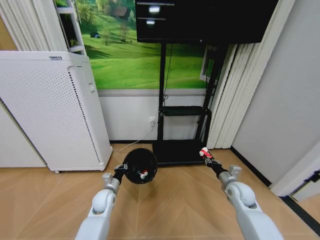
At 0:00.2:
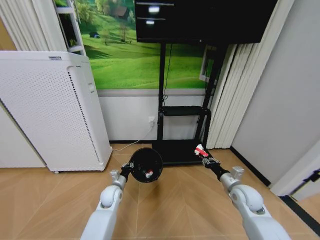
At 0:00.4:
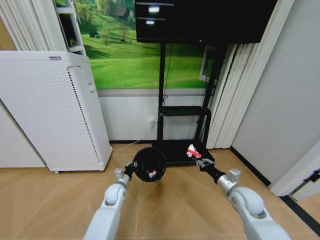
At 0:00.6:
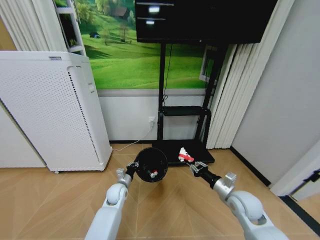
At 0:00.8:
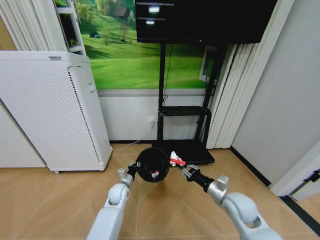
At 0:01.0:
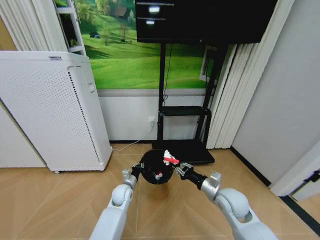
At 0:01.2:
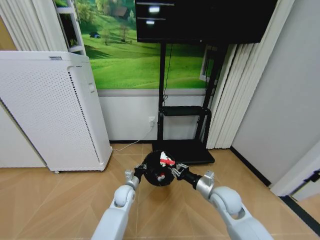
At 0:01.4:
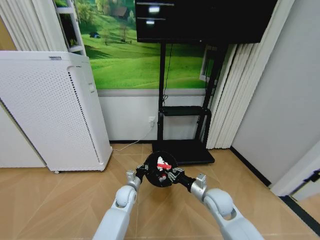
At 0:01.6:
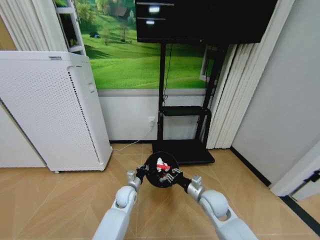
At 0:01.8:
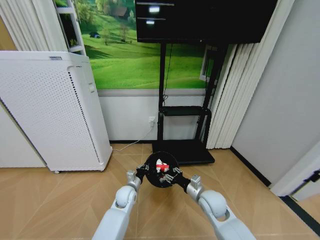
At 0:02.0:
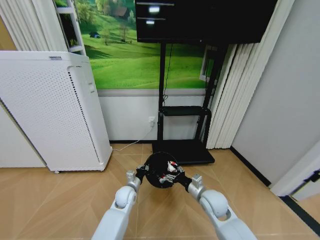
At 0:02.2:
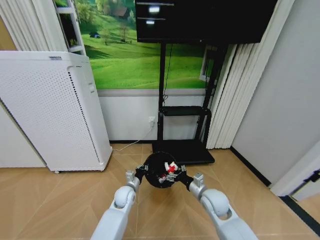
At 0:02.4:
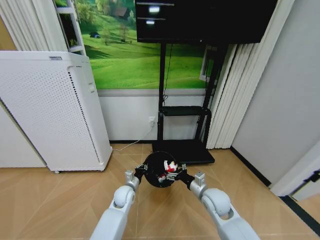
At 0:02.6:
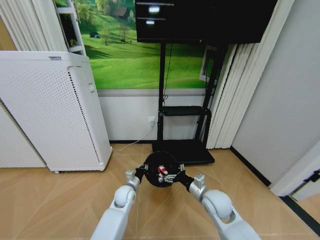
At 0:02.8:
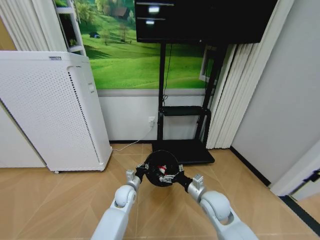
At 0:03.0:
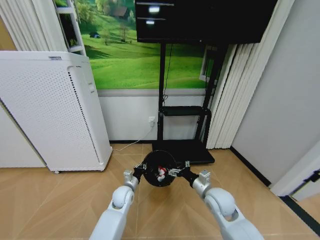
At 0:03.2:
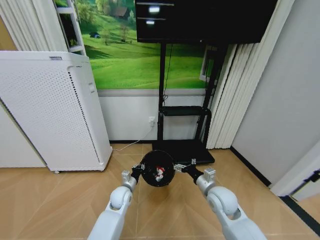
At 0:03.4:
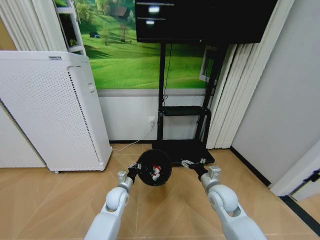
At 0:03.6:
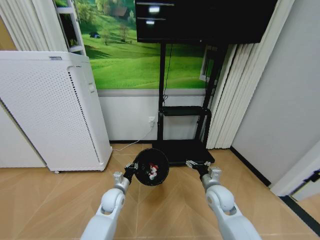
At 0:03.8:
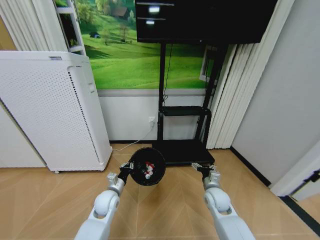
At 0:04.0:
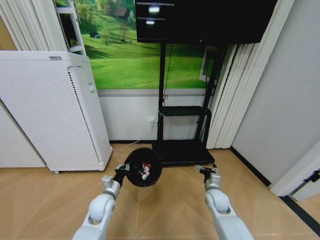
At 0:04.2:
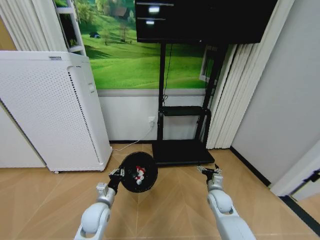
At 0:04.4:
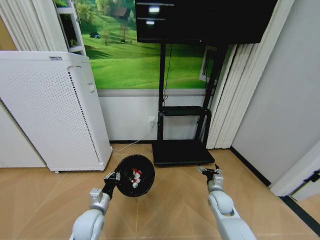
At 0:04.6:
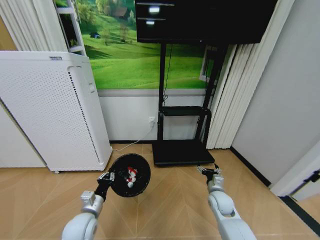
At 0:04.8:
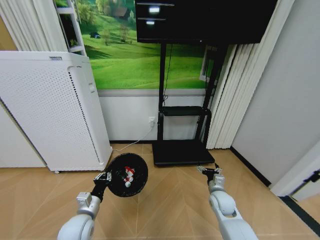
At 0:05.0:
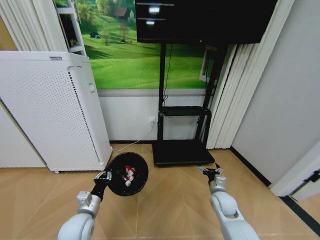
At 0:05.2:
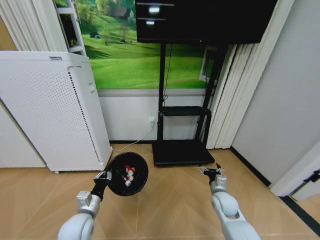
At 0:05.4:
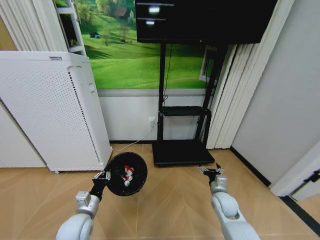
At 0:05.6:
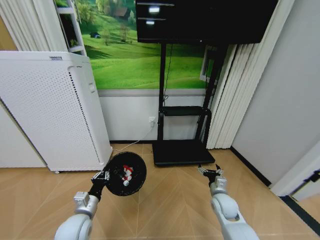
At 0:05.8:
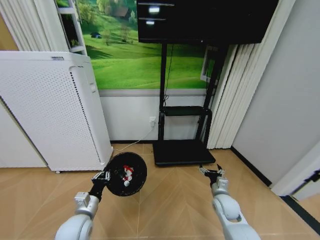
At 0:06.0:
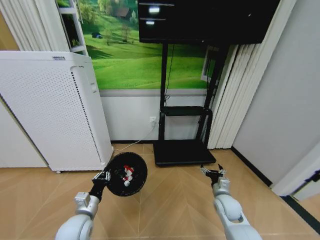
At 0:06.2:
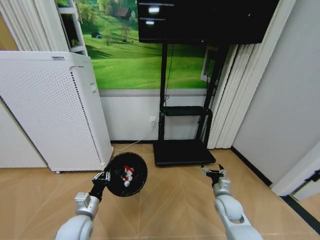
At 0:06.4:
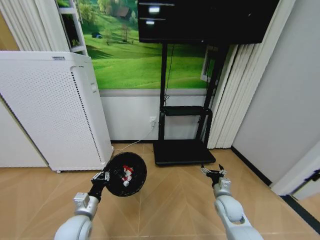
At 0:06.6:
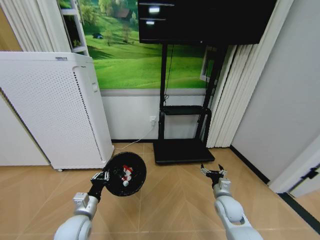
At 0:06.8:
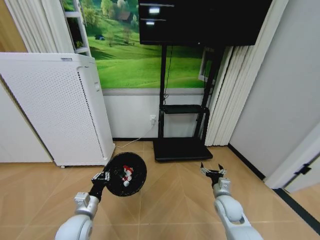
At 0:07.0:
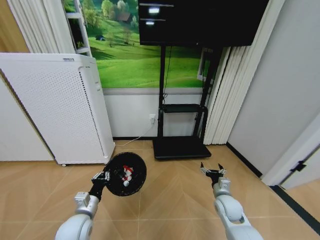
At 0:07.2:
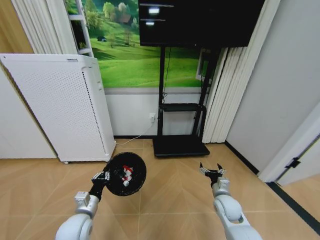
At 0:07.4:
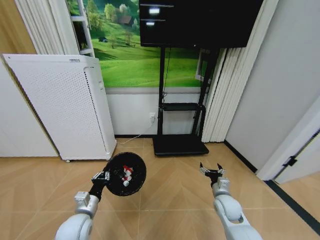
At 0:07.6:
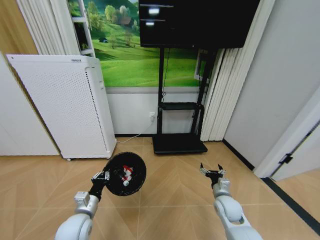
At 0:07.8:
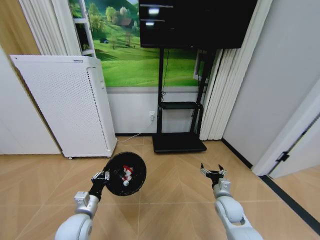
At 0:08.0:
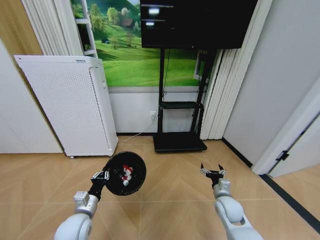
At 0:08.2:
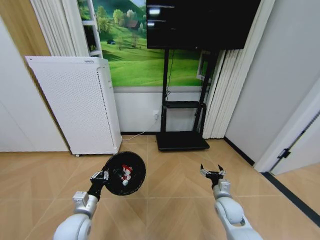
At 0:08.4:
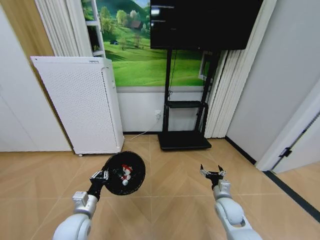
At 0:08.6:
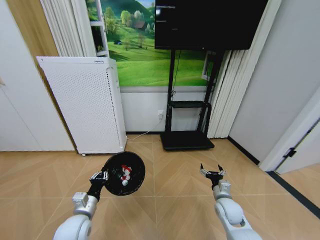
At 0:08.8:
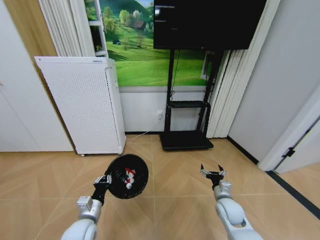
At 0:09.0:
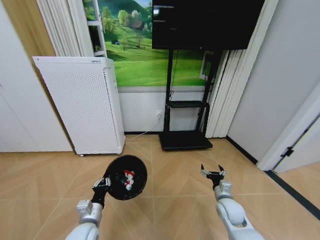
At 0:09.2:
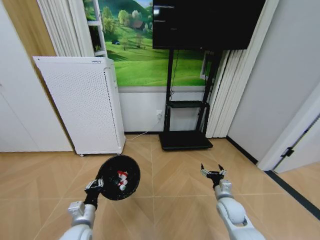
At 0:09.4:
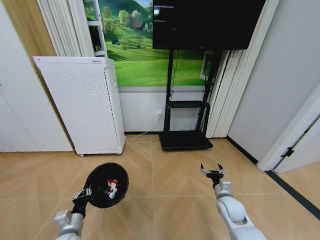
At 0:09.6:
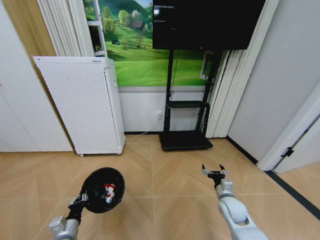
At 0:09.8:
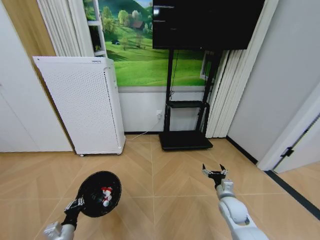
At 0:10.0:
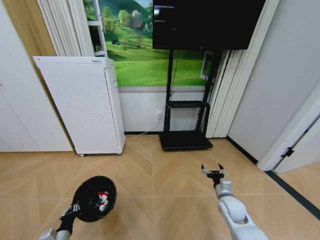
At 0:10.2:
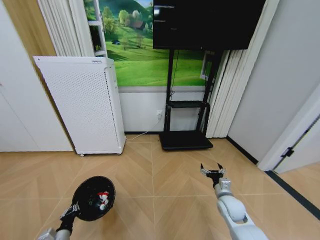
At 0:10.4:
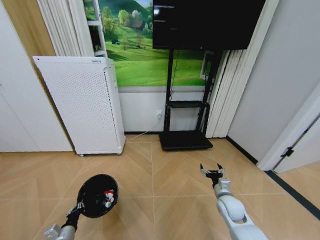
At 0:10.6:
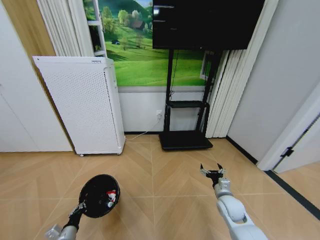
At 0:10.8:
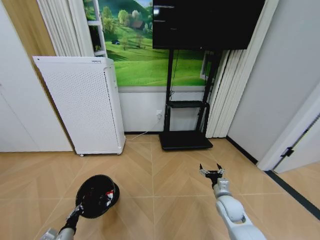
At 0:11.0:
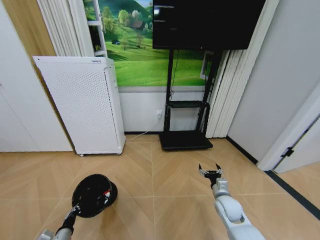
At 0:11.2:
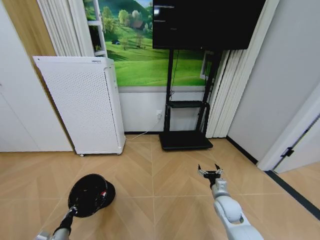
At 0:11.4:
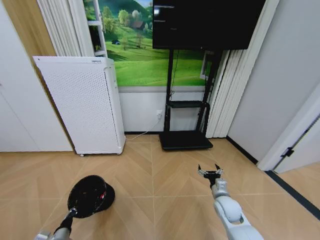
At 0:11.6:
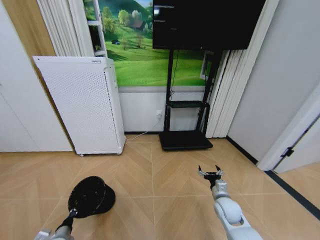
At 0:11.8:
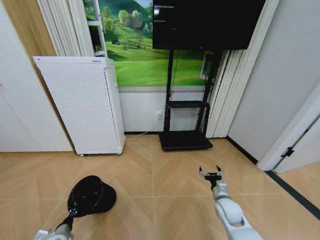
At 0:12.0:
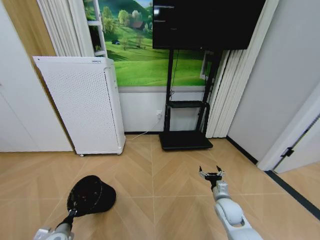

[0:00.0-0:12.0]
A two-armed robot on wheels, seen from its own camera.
Task of the whole recording: Pick up the trash bin and place the garbage on the floor into it.
0:00.0 to 0:01.6: The left gripper moves to the right, some 10 cm. Meanwhile the right gripper shifts about 15 cm to the left.
0:01.6 to 0:03.0: The right gripper opens up.
0:03.0 to 0:04.4: The left gripper moves backward and to the left, some 15 cm; the right gripper is displaced downward and to the right by roughly 10 cm.
0:04.4 to 0:06.0: The grippers stay close to where they were, moving slightly.
0:09.0 to 0:10.4: The left gripper shifts about 20 cm to the left and downward.

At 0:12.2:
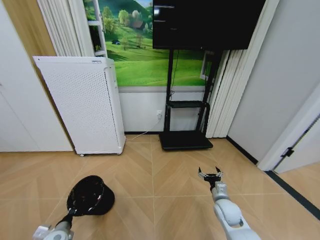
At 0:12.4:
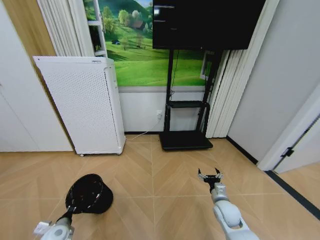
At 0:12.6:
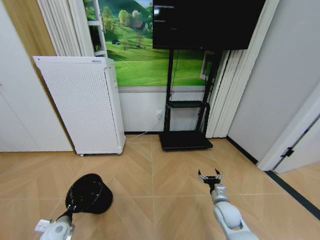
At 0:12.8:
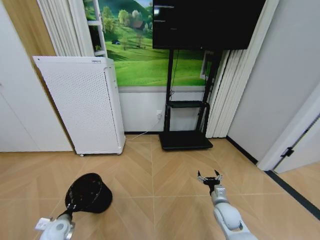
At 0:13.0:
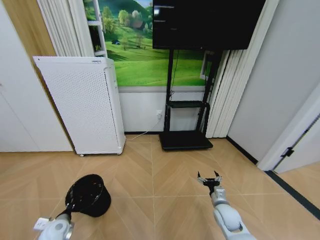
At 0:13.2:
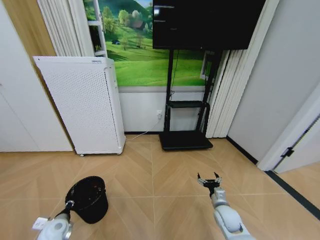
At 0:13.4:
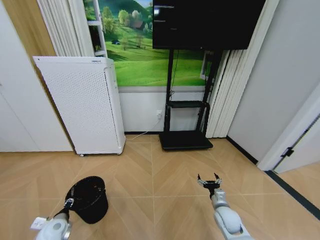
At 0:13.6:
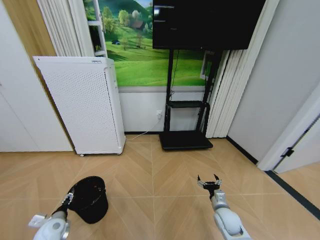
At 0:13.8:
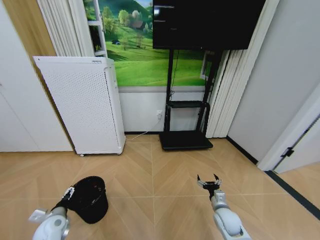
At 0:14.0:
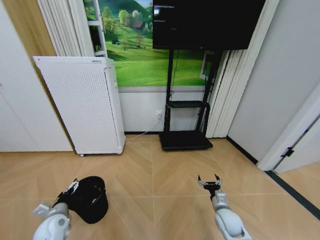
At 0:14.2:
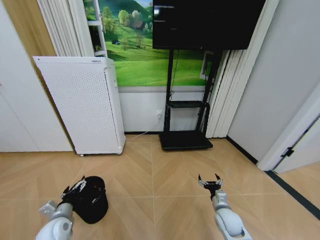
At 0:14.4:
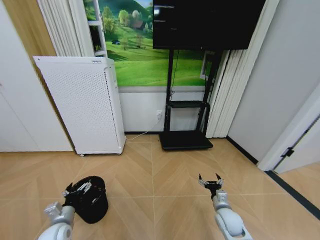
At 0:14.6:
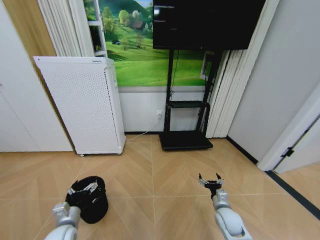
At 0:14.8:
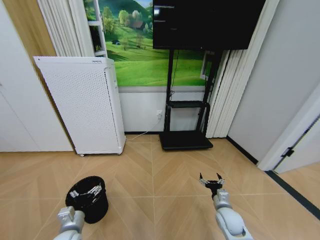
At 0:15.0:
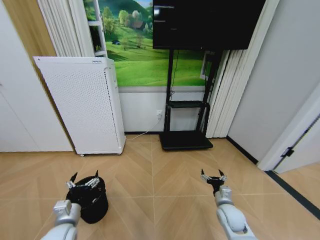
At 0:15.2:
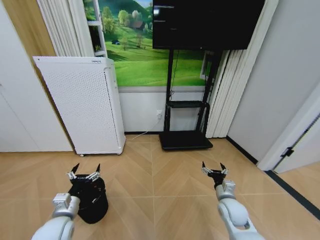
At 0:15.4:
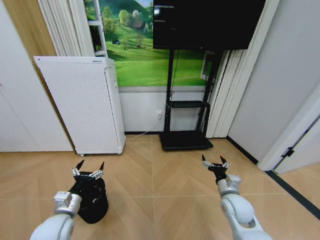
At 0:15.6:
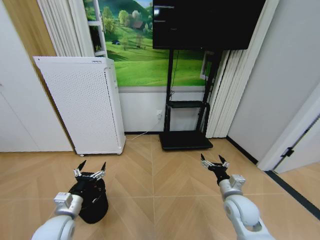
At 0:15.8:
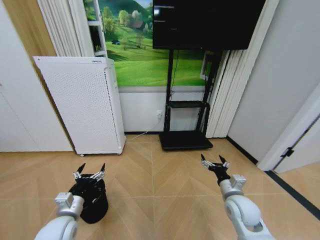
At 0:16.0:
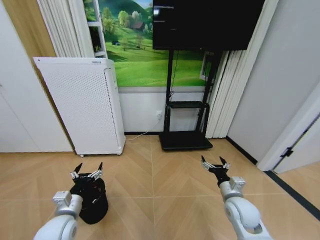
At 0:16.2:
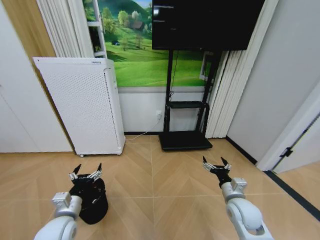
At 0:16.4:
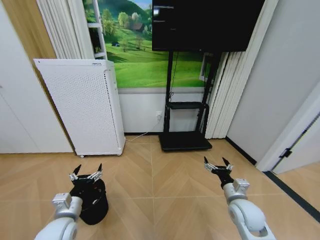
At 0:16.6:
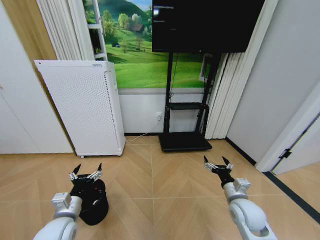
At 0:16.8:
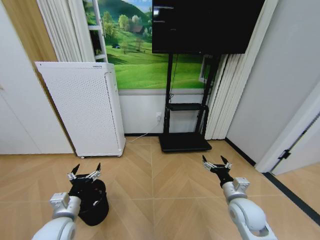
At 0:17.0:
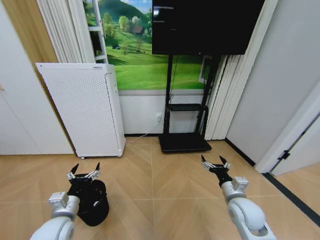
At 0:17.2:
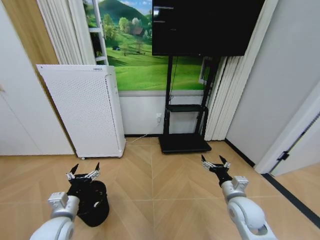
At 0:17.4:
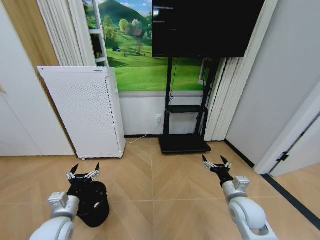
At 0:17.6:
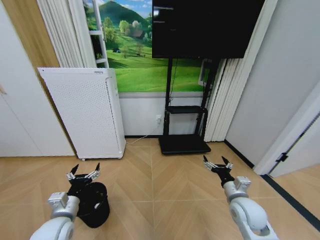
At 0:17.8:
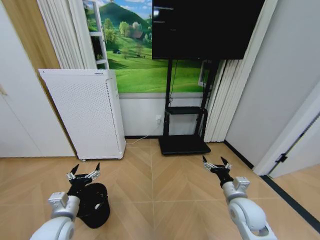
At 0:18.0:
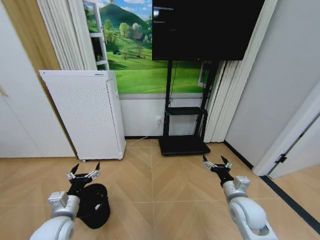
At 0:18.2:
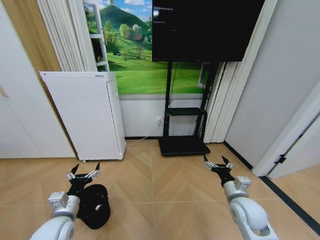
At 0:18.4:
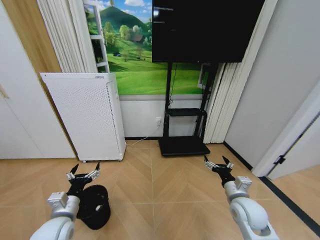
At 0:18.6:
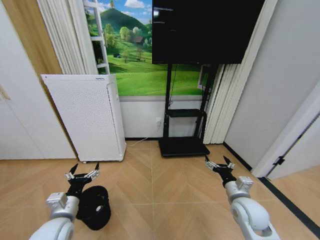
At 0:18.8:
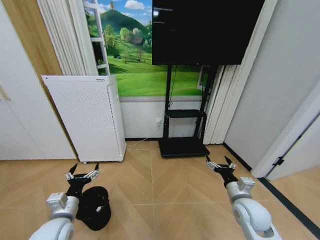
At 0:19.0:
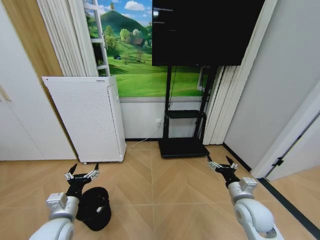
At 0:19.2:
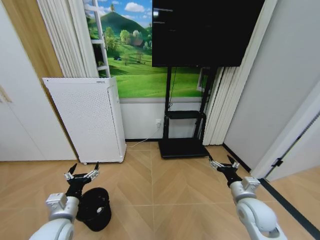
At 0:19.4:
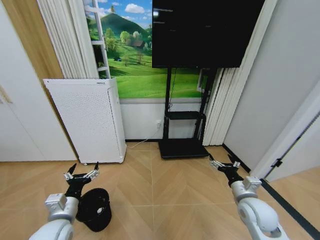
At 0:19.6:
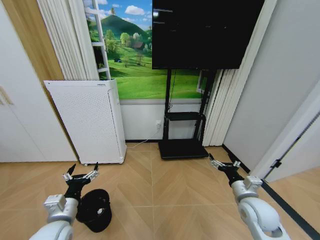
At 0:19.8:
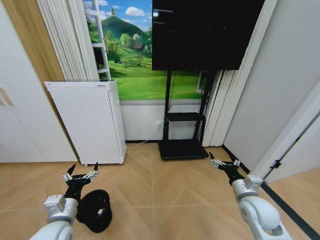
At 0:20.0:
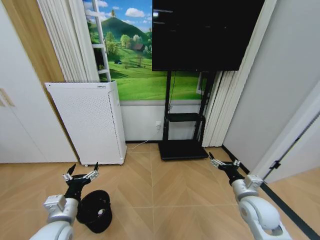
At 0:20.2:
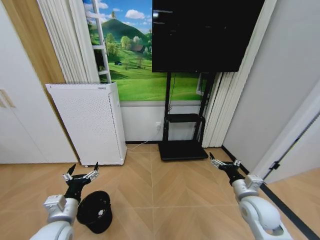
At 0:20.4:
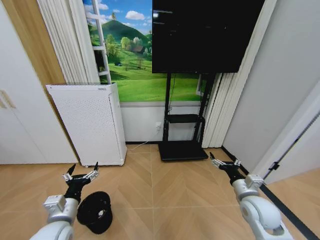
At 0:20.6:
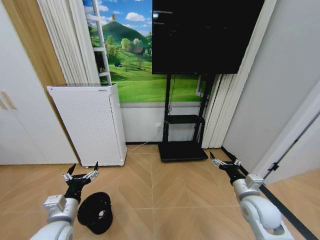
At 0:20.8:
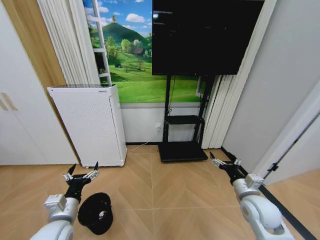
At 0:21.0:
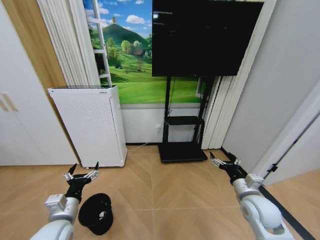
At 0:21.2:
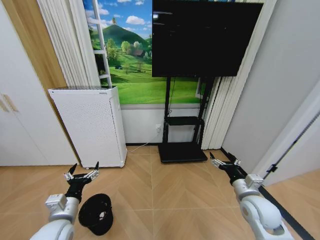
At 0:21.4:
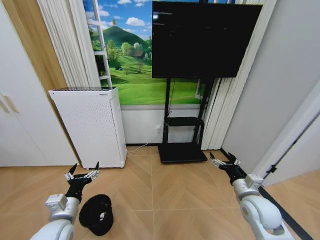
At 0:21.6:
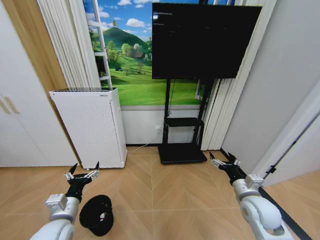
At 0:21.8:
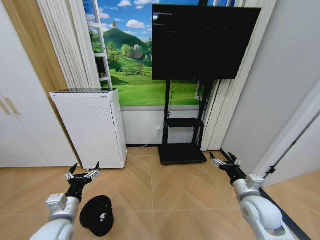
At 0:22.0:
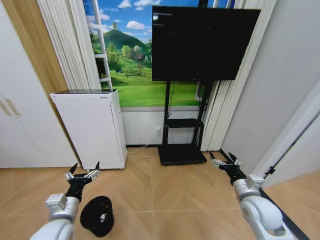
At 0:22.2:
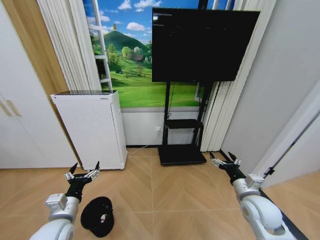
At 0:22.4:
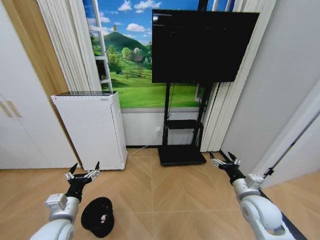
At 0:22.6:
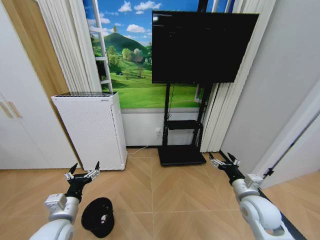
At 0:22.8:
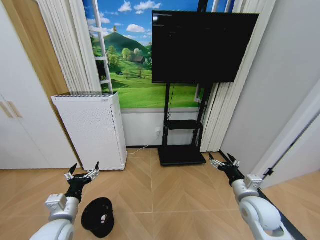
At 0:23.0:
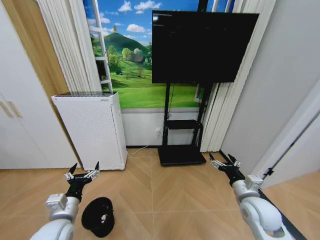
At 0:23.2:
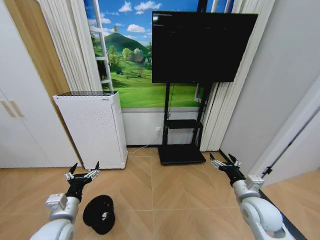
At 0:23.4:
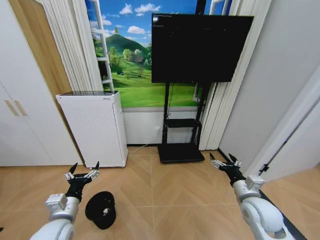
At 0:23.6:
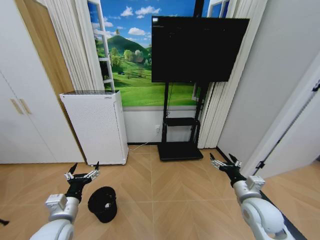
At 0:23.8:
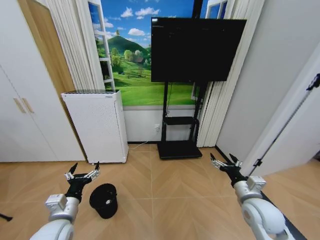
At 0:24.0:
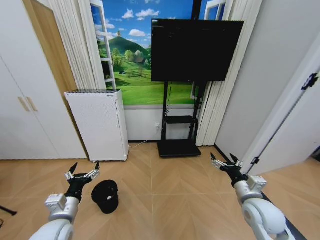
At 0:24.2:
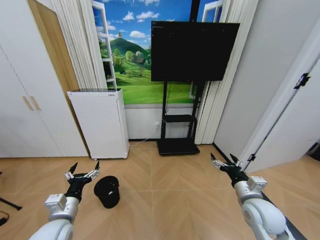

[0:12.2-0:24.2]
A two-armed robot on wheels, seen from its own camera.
Task of the whole recording: Pick up the trash bin and place the garbage on the floor into it.
0:12.2 to 0:13.8: The left gripper shifts approximately 5 cm upward, and opens.
0:13.8 to 0:15.2: The left gripper shifts roughly 10 cm to the right and upward.
0:15.2 to 0:16.6: The right gripper heads upward, covering approximately 10 cm.
0:16.6 to 0:19.8: There are only small adjustments of the grippers.
0:19.8 to 0:22.6: Both grippers stay put.
